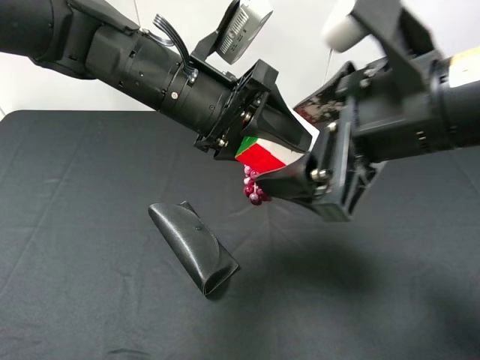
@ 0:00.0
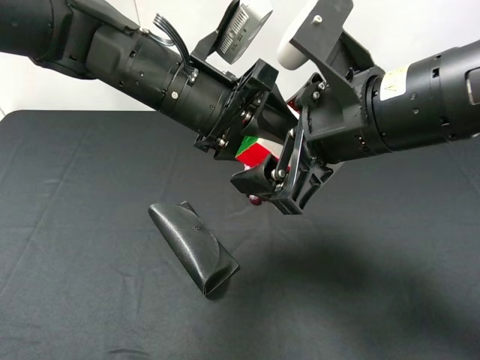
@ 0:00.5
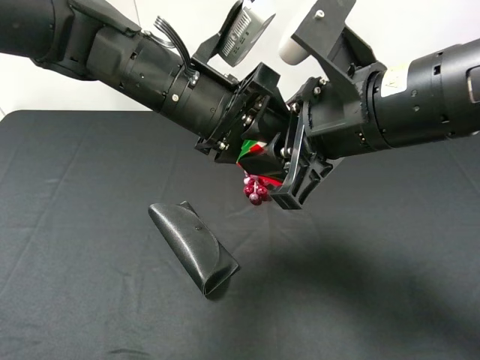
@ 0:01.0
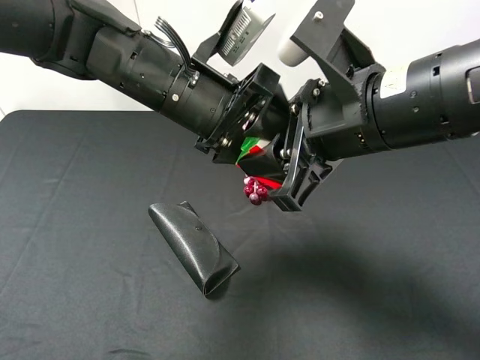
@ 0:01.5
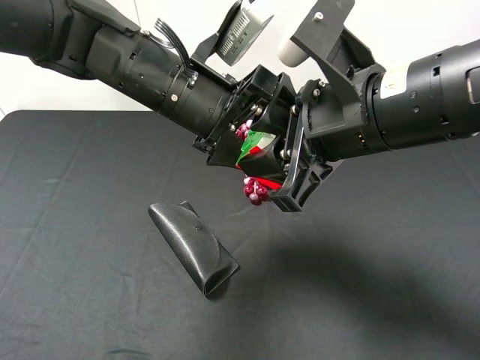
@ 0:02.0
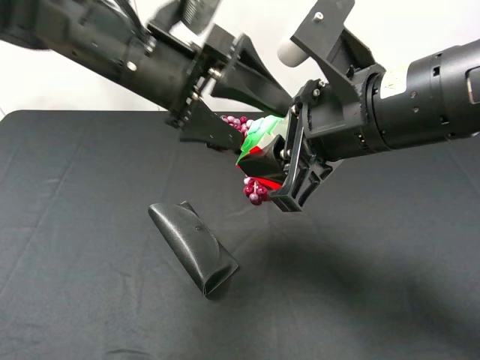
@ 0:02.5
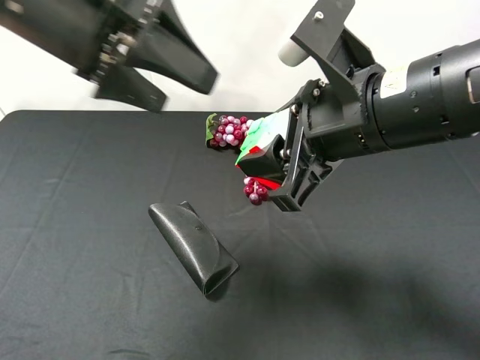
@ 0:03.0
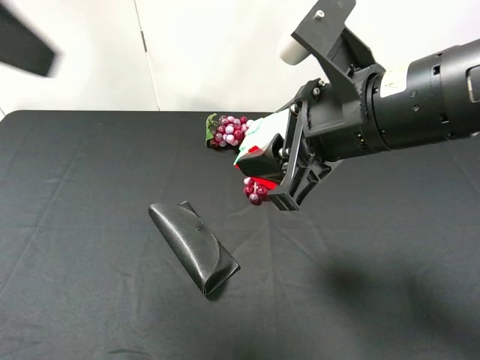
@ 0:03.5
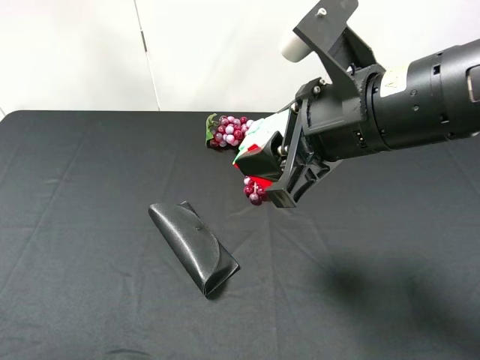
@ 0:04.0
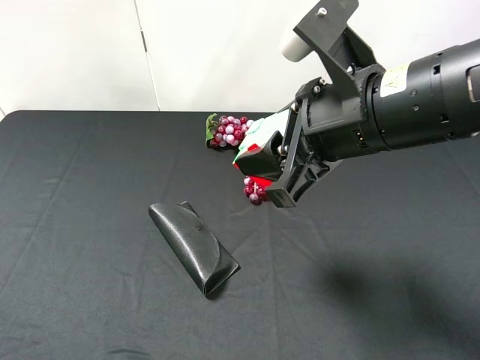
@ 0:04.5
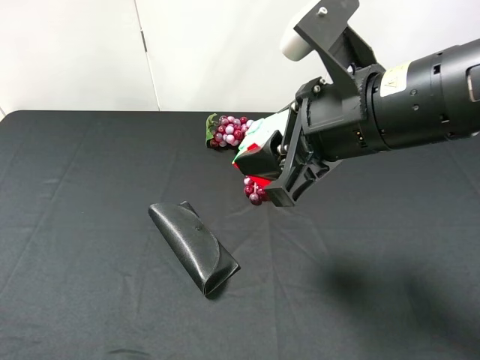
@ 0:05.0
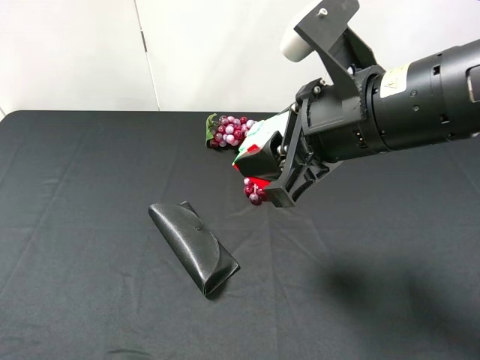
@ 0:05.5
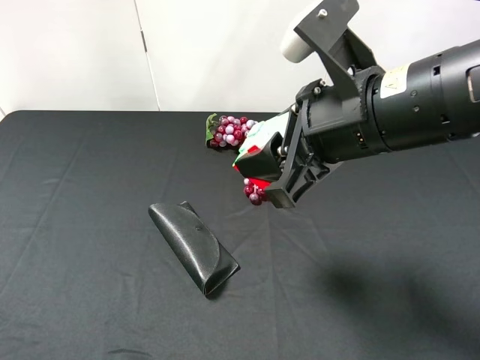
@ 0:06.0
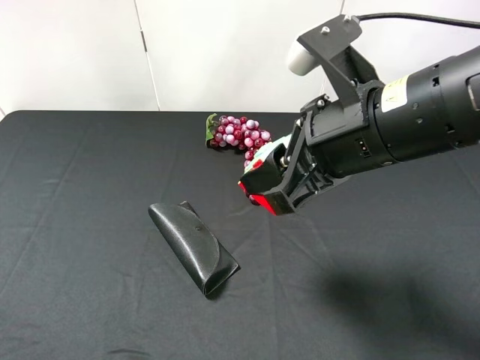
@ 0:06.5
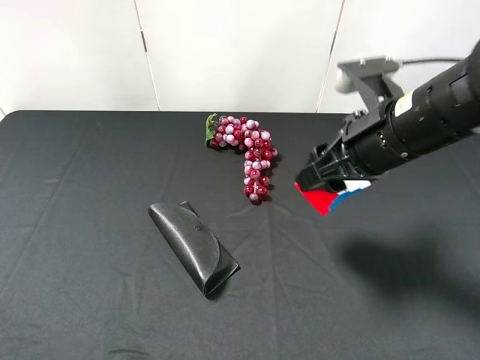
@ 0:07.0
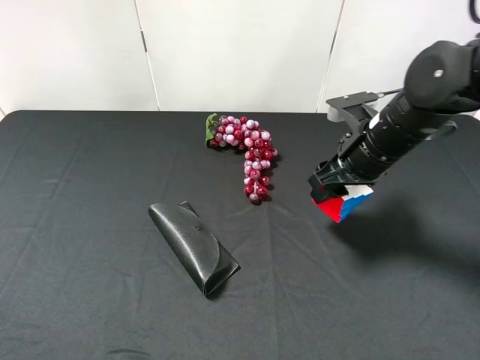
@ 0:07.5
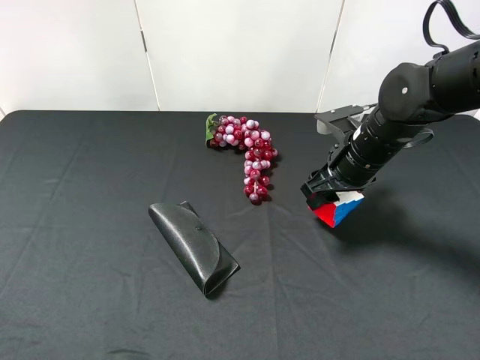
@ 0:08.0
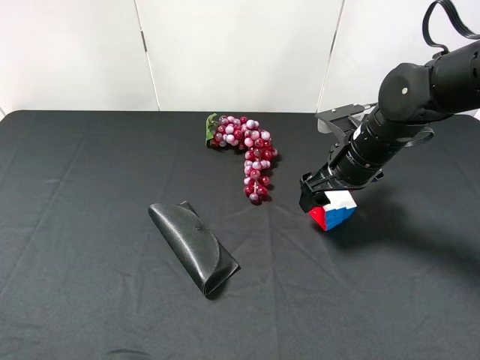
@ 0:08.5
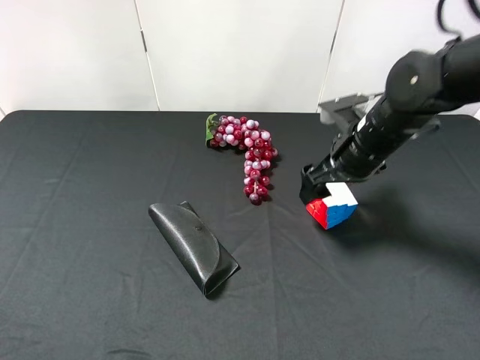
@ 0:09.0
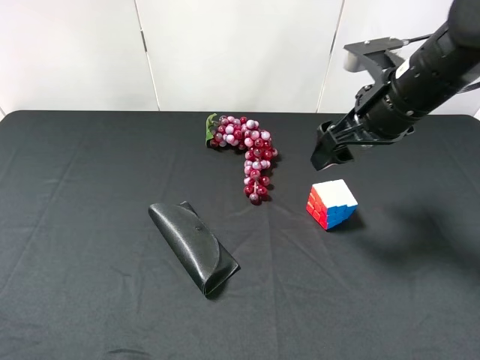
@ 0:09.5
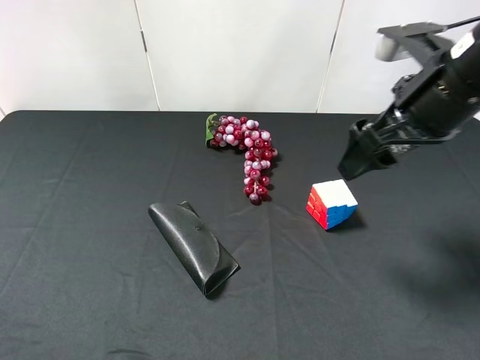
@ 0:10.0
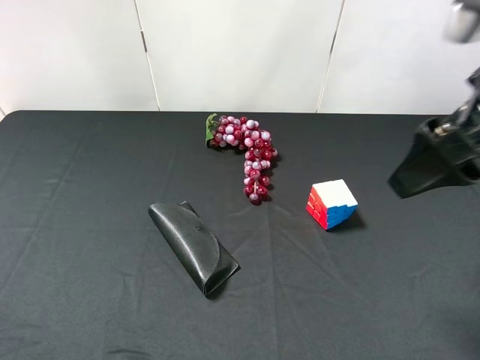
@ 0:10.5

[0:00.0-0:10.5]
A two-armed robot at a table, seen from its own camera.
Task of the whole recording: use the left gripper to pick up the item and transfer it from the left gripper to the right gripper.
0:00.0 to 0:02.0: The right gripper closes. The left gripper opens.
0:02.0 to 0:04.0: The left gripper travels to the left, backward and upward by some 35 cm.
0:04.0 to 0:06.5: The left gripper is displaced downward and backward by some 10 cm.
0:06.5 to 0:08.5: The right gripper shifts about 20 cm forward, downward and to the right, and opens.
0:08.5 to 0:10.5: The right gripper moves upward and backward, roughly 25 cm.
